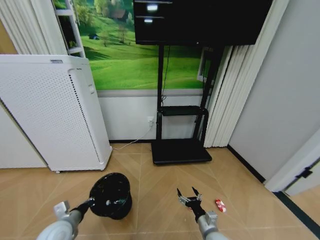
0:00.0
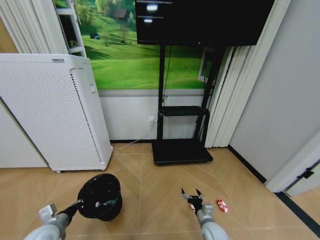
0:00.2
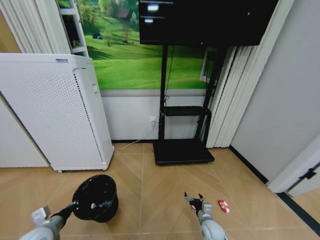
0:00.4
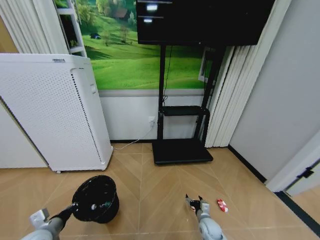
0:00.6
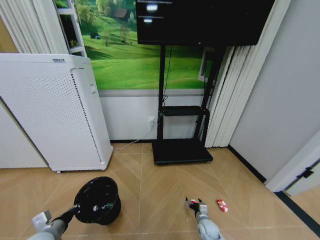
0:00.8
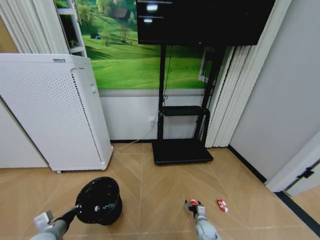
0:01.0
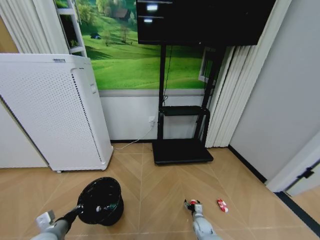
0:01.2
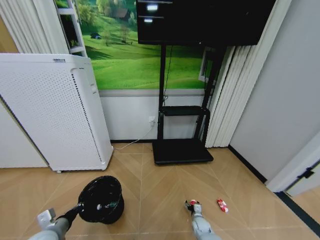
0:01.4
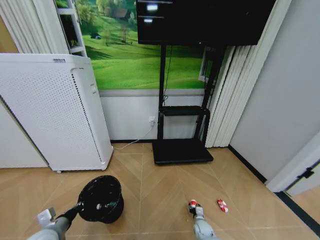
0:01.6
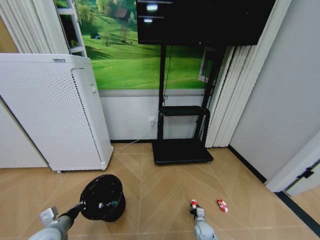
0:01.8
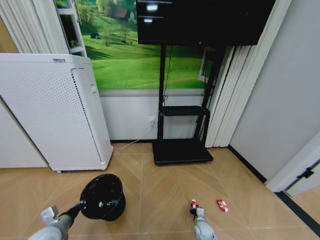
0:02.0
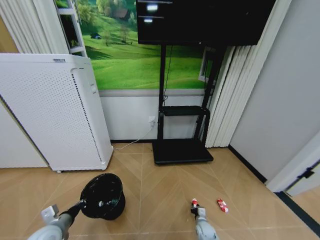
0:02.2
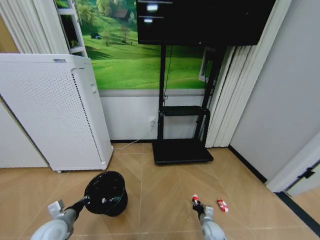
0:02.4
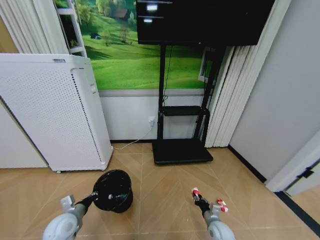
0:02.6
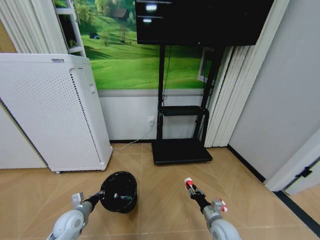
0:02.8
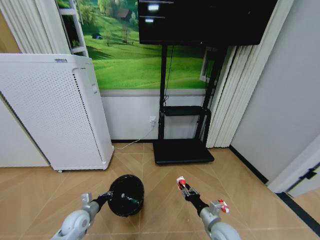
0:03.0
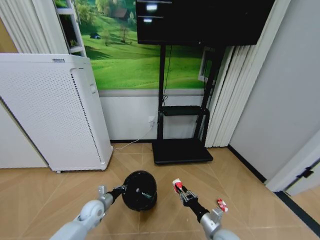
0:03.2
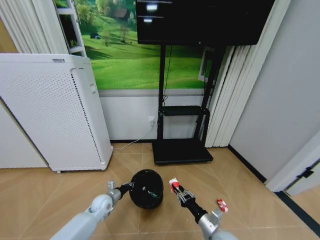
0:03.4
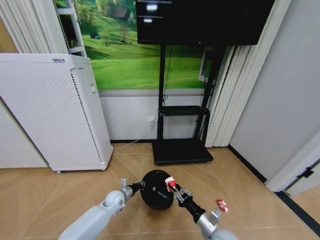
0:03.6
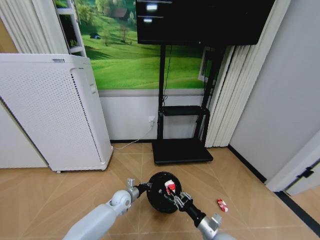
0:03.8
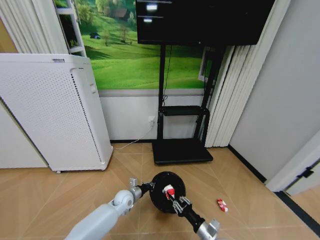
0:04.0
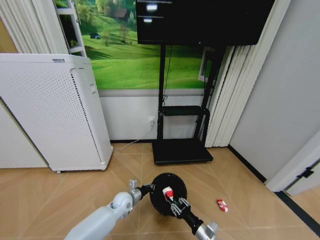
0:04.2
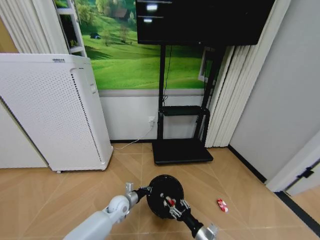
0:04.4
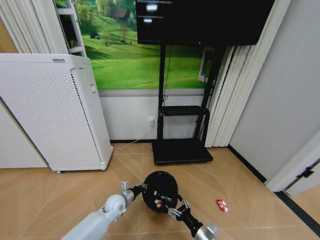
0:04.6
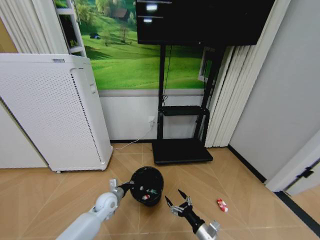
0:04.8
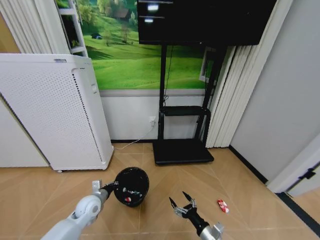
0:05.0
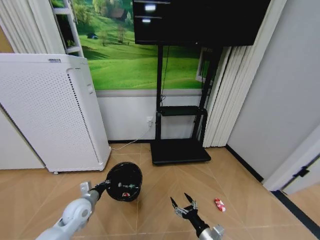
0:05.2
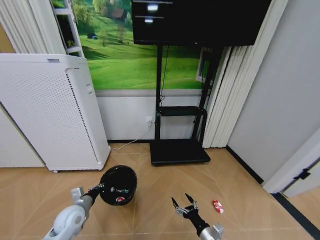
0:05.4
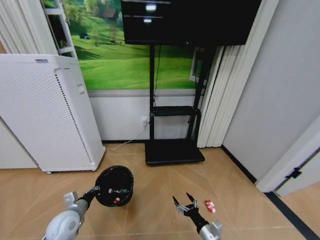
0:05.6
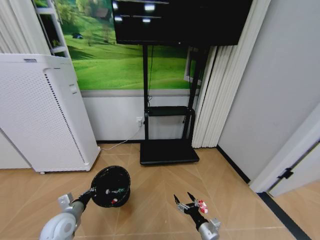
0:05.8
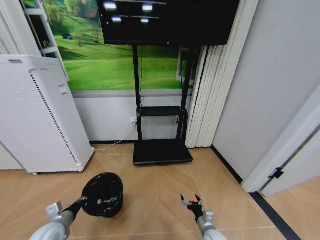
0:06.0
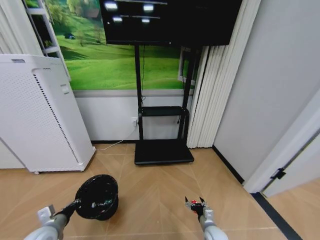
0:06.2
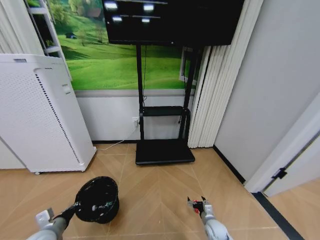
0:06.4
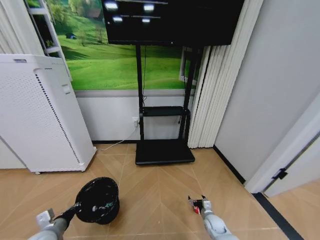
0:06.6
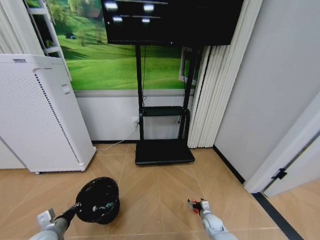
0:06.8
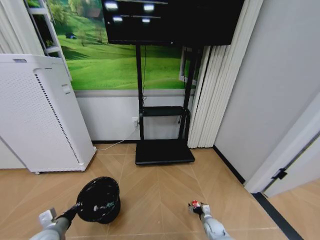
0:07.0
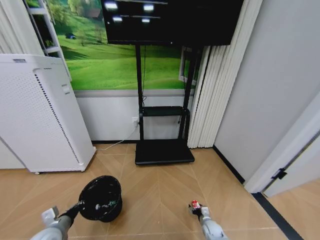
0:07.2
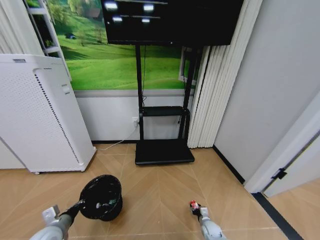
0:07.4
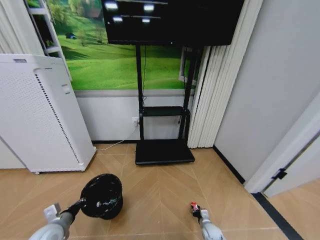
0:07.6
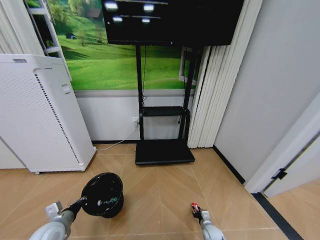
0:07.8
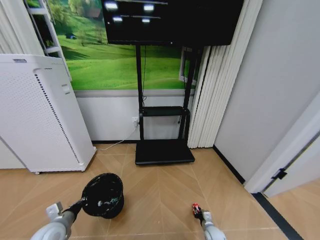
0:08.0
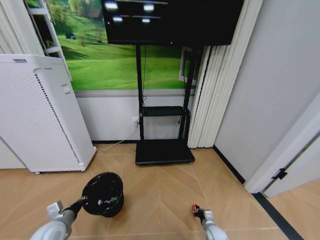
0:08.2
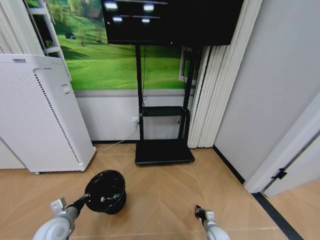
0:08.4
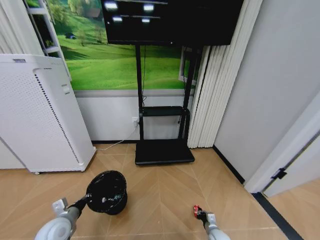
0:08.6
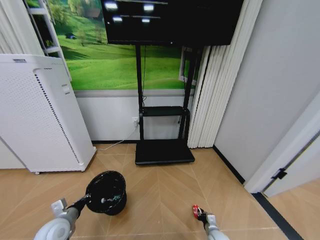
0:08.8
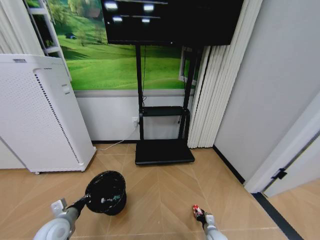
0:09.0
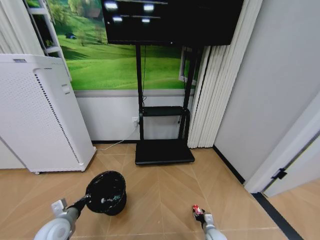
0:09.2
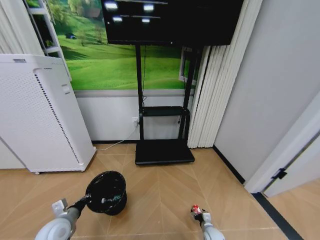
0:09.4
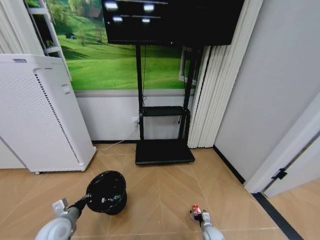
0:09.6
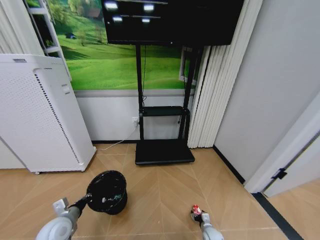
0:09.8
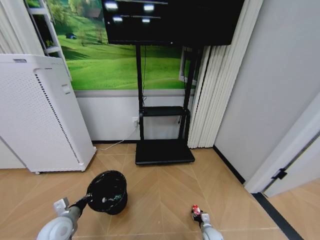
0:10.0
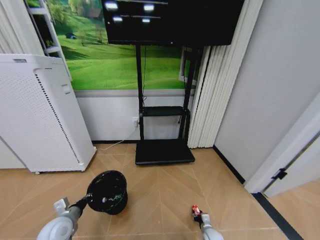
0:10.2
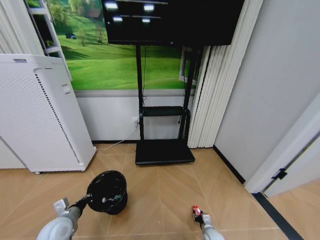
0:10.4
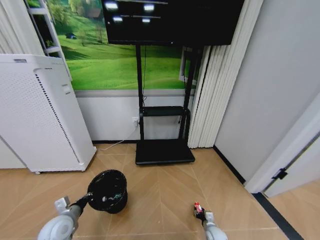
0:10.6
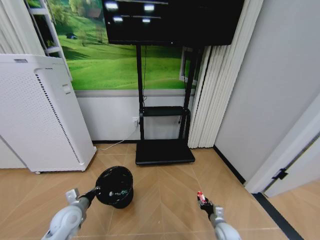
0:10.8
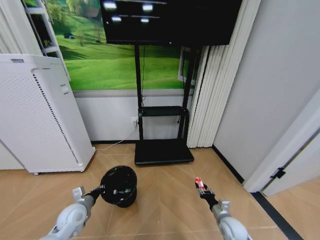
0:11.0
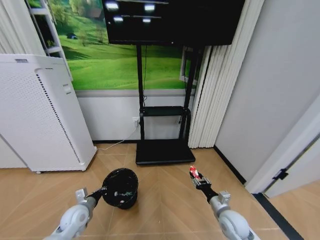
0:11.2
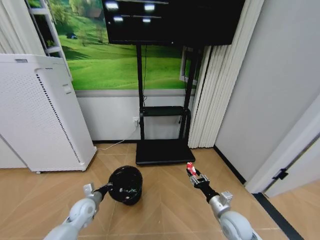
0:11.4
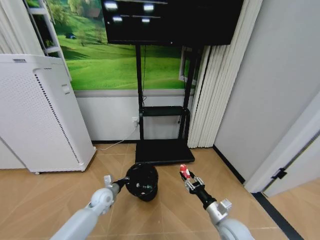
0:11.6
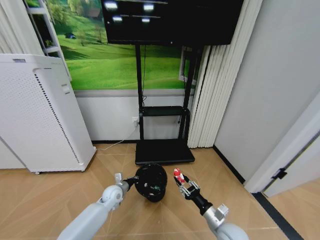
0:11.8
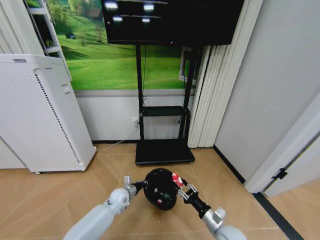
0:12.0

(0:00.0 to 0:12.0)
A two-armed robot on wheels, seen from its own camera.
Task of the whole recording: Pick up the trash bin and place the garbage on the floor into it.
0:00.0 - 0:01.6: The right gripper shifts approximately 20 cm downward and forward, and closes.
0:01.6 - 0:03.0: The right gripper travels upward by approximately 25 cm, and closes its fingers. The left gripper goes approximately 10 cm downward and forward.
0:03.0 - 0:04.4: The right gripper moves backward, approximately 5 cm, and opens its fingers; the left gripper moves to the right, approximately 15 cm.
0:04.4 - 0:06.0: The right gripper moves roughly 5 cm, and opens up; the left gripper goes about 25 cm to the left, backward and upward.
0:06.0 - 0:07.6: The right gripper is displaced downward, forward and to the right by about 15 cm, and closes.
0:07.6 - 0:09.0: The grippers make only small movements.
0:09.0 - 0:10.4: The right gripper opens, then closes once more.
0:10.4 - 0:12.0: The right gripper moves upward, some 25 cm. The left gripper is displaced to the right and forward by roughly 25 cm.

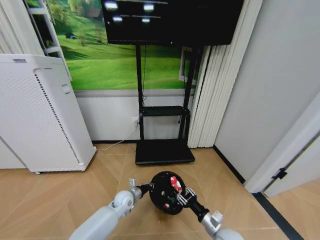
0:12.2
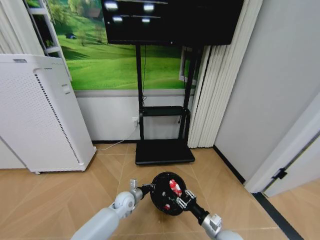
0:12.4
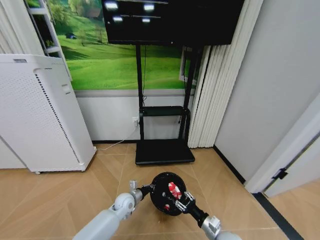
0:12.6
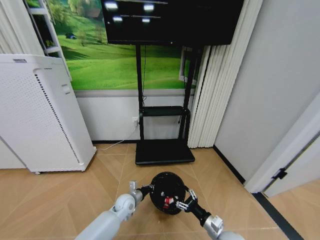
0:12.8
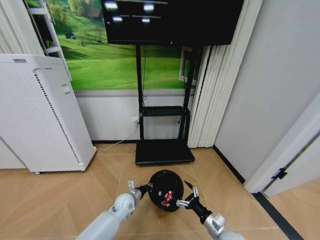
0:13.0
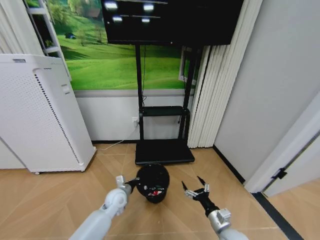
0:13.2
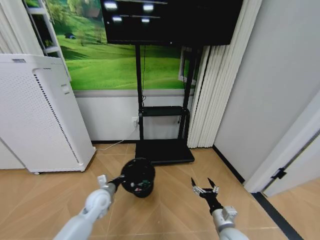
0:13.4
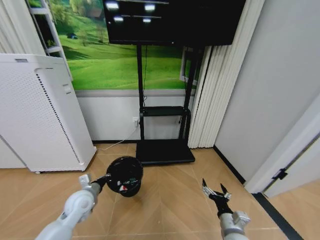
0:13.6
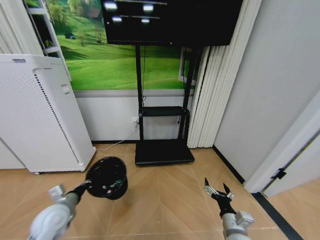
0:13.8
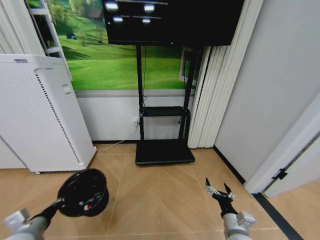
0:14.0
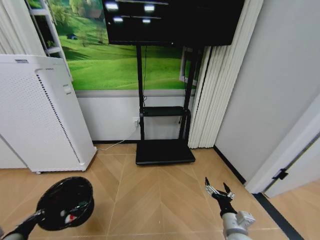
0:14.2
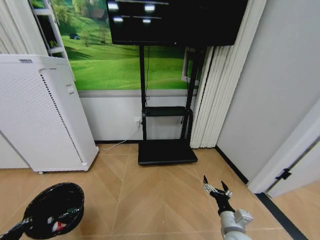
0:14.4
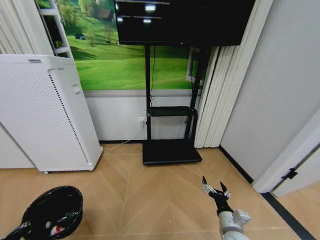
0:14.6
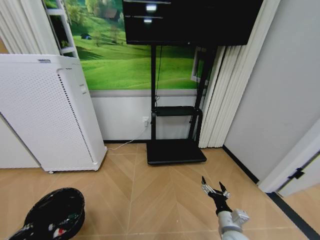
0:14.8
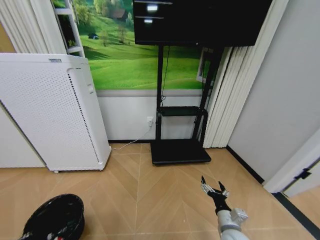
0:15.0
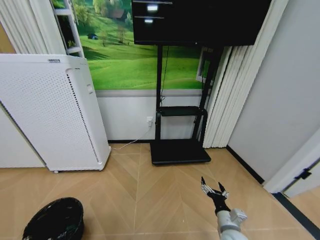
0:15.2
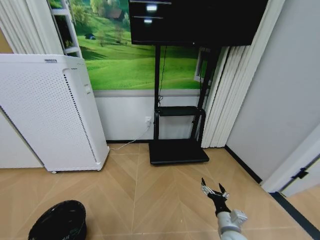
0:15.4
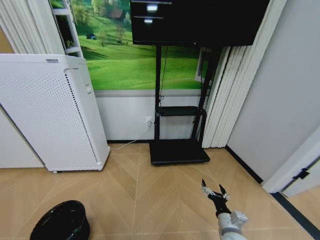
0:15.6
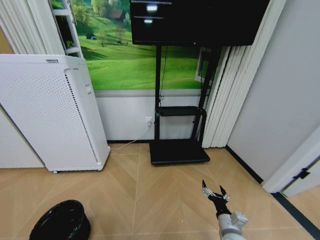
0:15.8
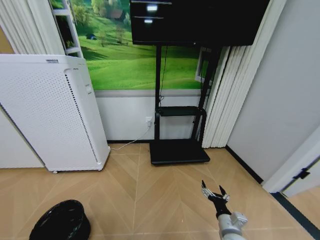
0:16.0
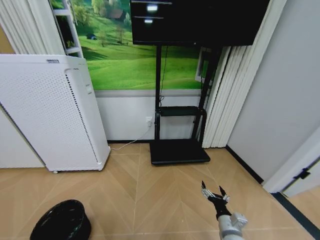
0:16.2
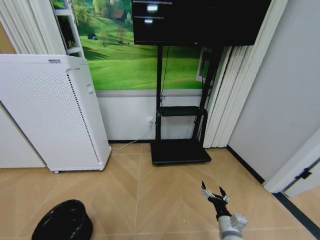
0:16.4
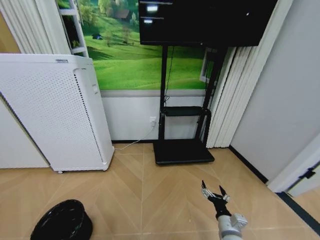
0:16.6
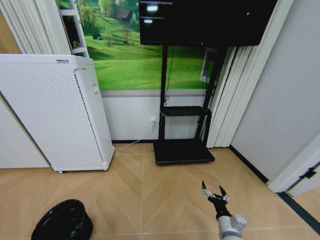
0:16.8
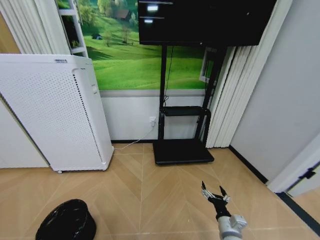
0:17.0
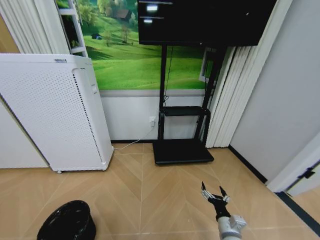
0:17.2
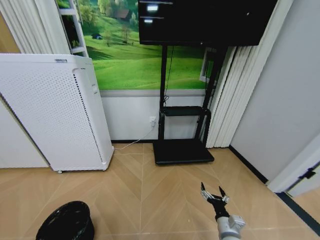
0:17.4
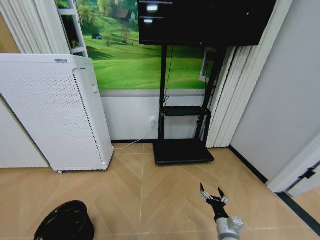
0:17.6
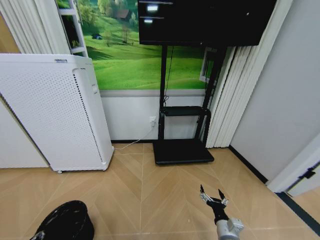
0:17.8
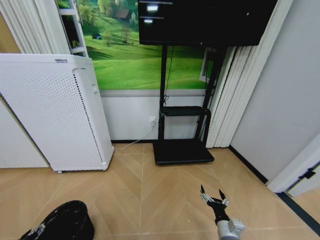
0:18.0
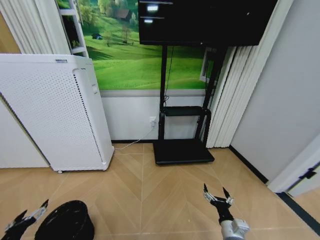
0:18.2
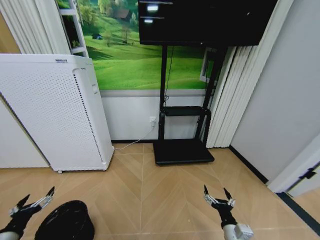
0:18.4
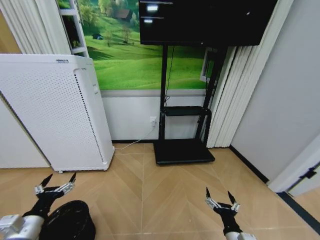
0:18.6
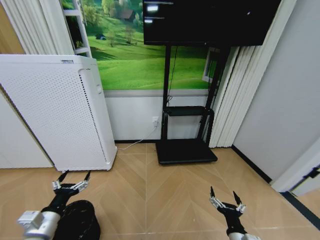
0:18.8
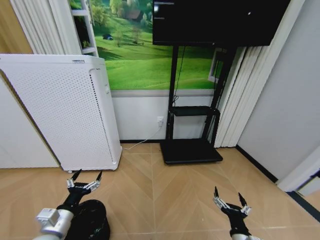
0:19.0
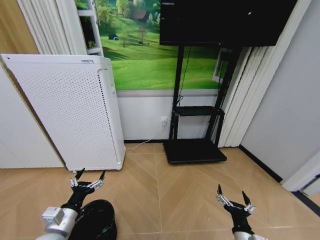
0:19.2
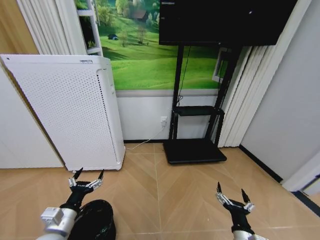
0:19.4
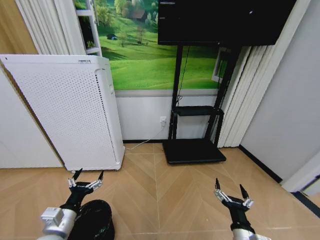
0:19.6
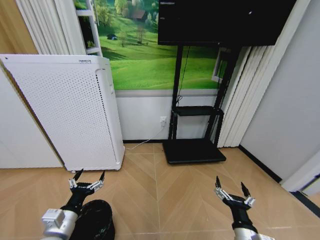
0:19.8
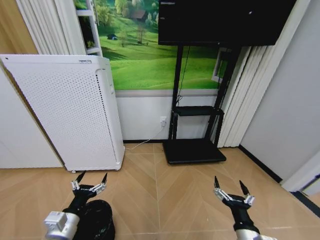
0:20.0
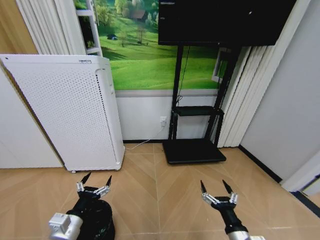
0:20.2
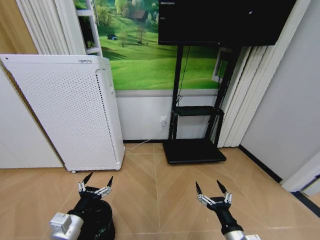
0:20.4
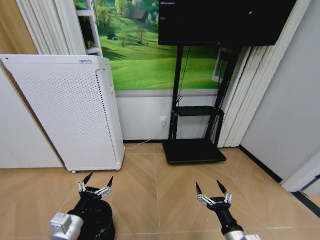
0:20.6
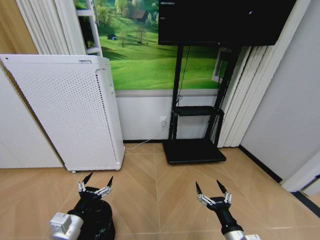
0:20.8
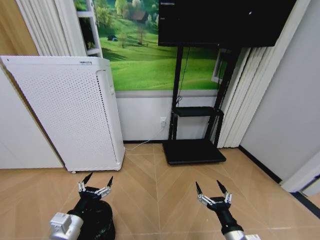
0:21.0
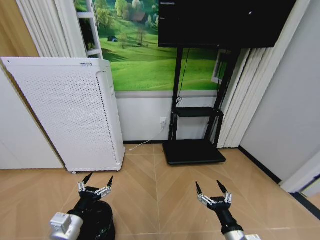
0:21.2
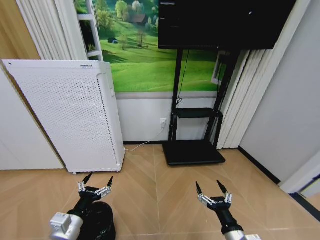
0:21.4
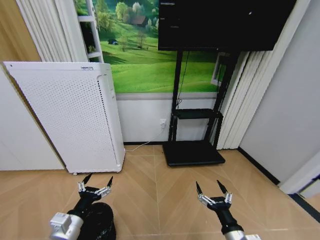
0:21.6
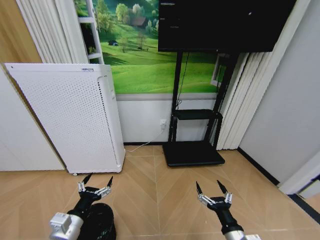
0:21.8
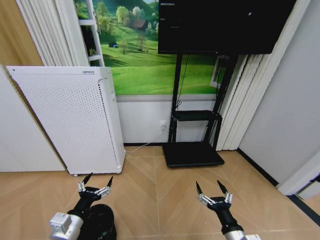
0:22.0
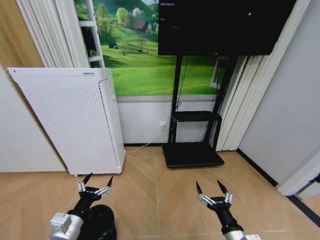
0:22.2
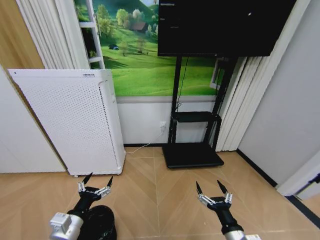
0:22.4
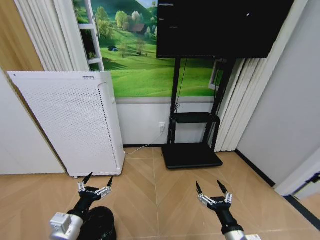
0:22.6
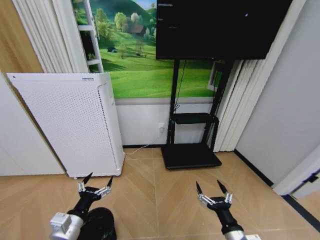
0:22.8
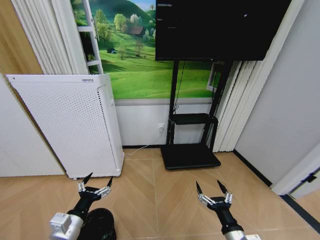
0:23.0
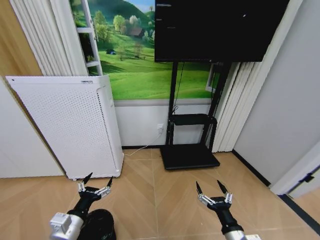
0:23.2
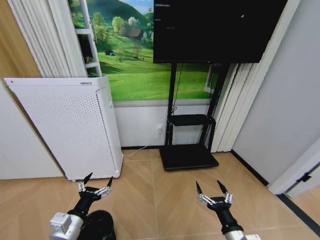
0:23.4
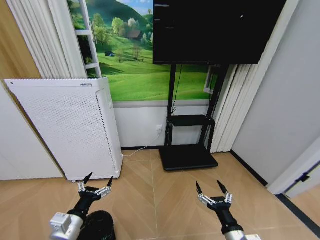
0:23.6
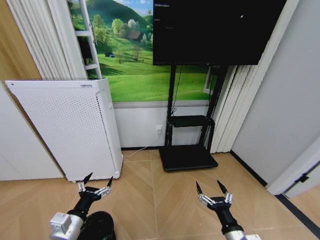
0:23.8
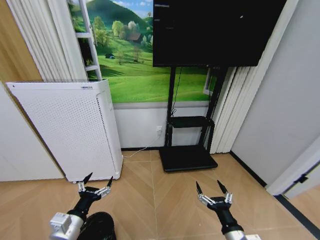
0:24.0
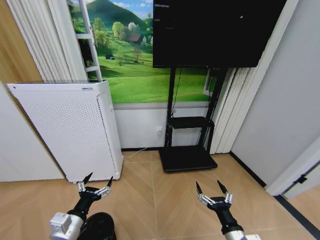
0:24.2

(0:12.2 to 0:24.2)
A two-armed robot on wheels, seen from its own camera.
Task of the whole recording: Pick up the trash bin and place the garbage on the floor into it.
0:12.2 - 0:13.8: The right gripper changes place by roughly 5 cm, and opens; the left gripper shifts some 30 cm to the left, upward and backward.
0:13.8 - 0:15.2: The left gripper goes roughly 20 cm backward, to the left and downward.
0:15.2 - 0:16.6: The grippers stay close to where they were, moving slightly.
0:16.6 - 0:18.2: The left gripper goes about 5 cm upward, and opens its fingers.
0:18.2 - 0:19.8: The right gripper shifts roughly 10 cm upward. Meanwhile the left gripper travels to the right by approximately 20 cm.
0:19.8 - 0:21.2: The grippers stay close to where they were, moving slightly.
0:21.2 - 0:22.6: The two grippers keep their place.
